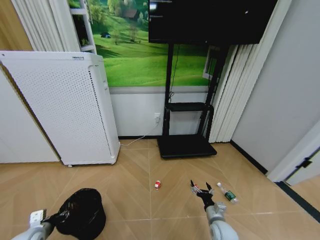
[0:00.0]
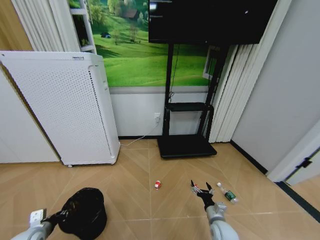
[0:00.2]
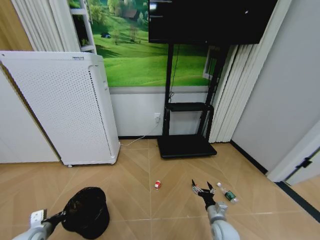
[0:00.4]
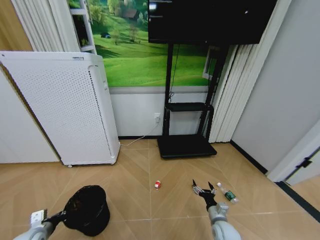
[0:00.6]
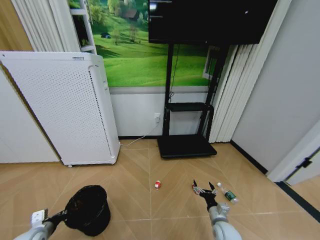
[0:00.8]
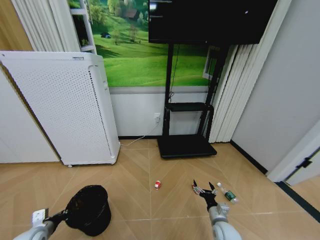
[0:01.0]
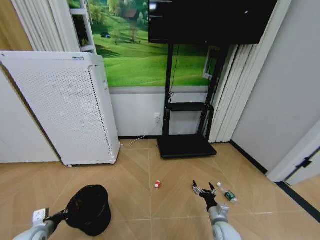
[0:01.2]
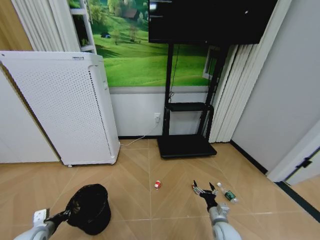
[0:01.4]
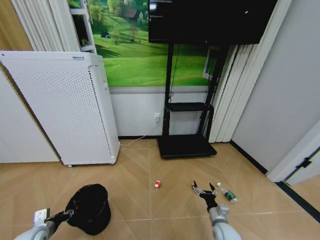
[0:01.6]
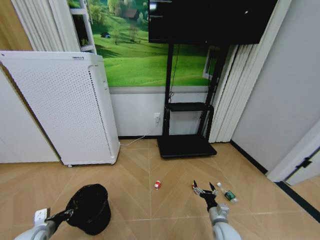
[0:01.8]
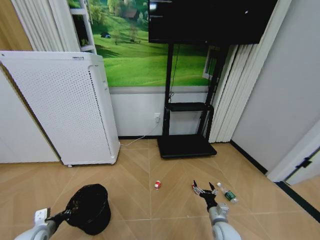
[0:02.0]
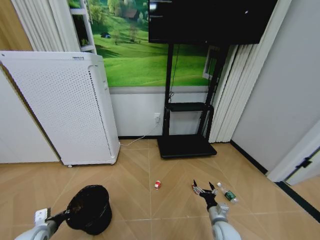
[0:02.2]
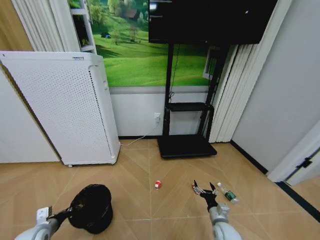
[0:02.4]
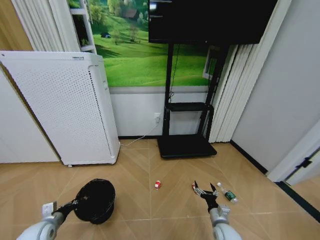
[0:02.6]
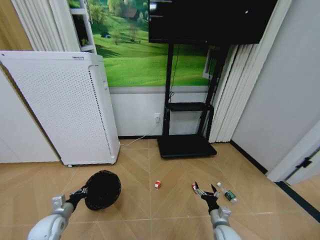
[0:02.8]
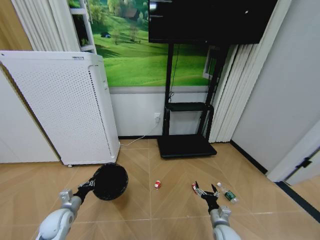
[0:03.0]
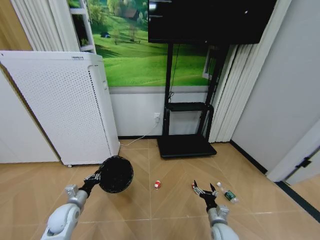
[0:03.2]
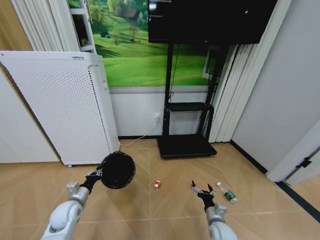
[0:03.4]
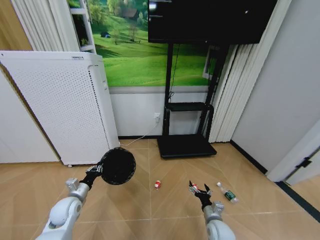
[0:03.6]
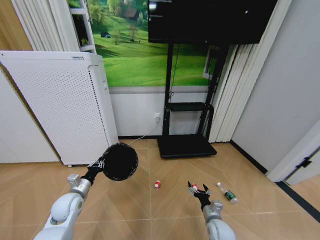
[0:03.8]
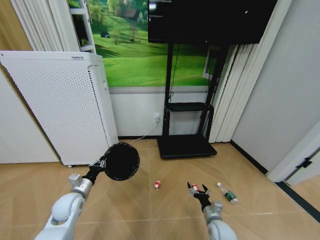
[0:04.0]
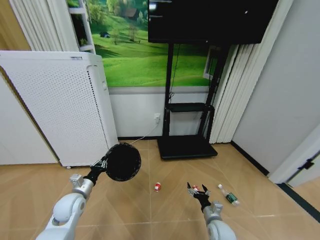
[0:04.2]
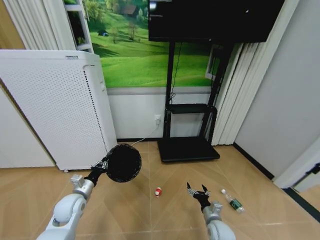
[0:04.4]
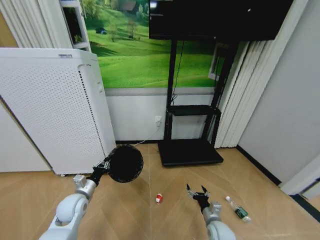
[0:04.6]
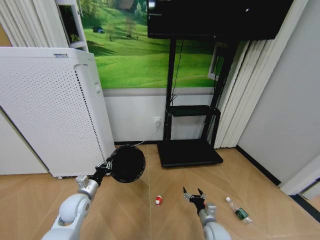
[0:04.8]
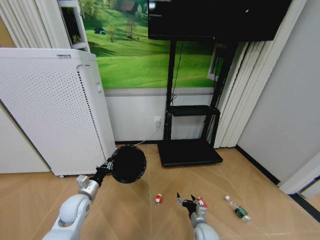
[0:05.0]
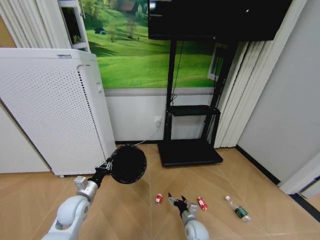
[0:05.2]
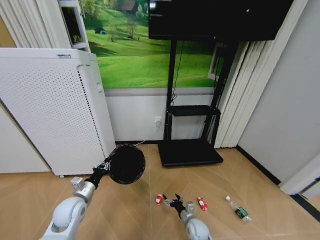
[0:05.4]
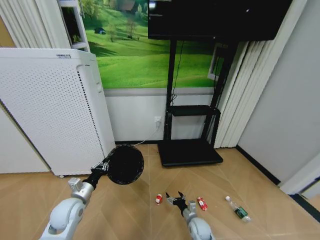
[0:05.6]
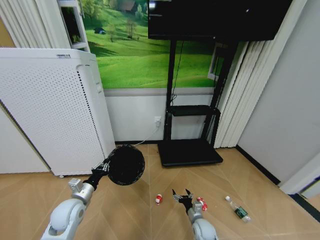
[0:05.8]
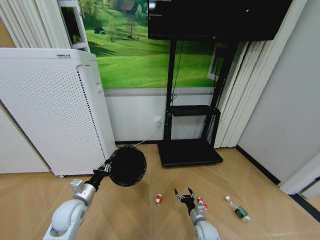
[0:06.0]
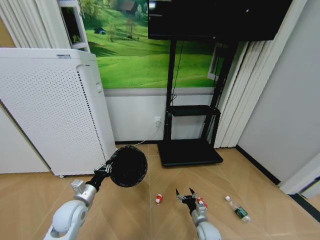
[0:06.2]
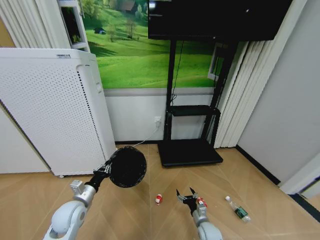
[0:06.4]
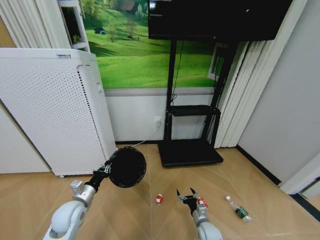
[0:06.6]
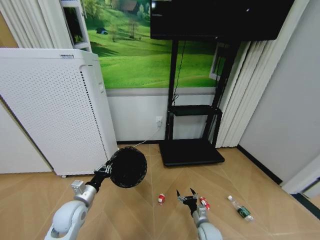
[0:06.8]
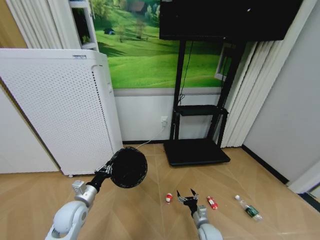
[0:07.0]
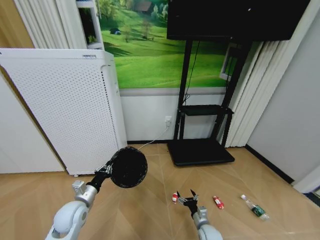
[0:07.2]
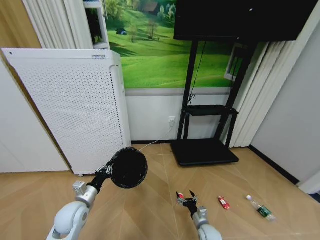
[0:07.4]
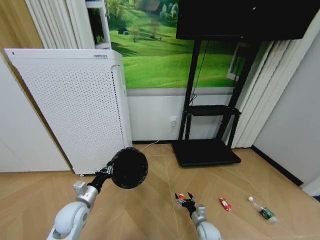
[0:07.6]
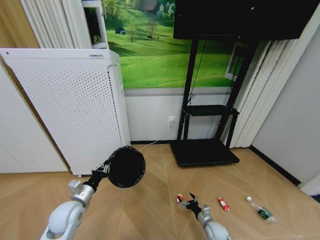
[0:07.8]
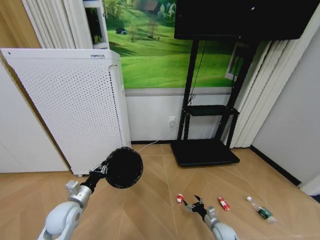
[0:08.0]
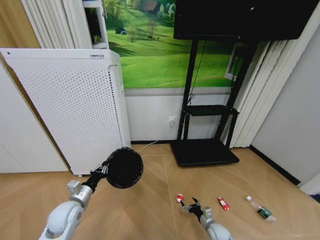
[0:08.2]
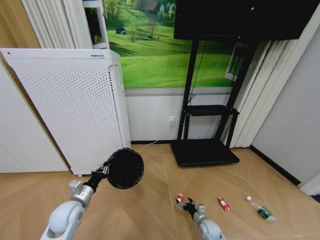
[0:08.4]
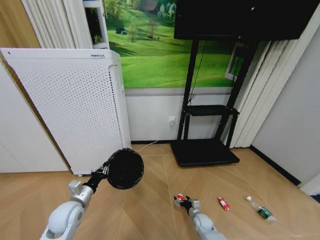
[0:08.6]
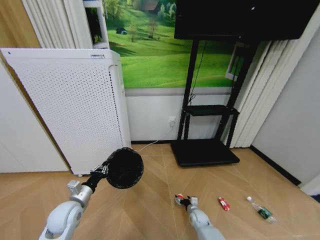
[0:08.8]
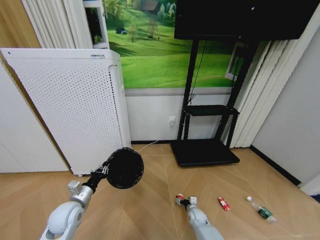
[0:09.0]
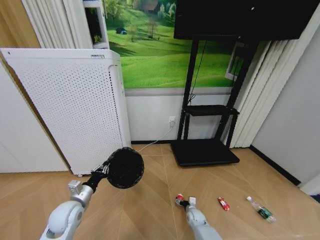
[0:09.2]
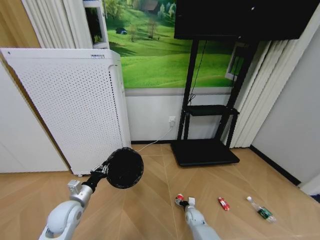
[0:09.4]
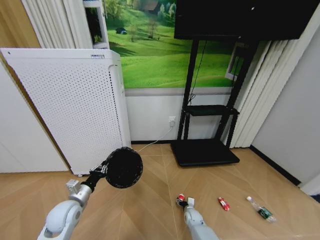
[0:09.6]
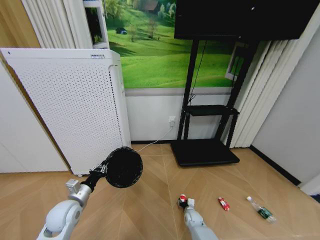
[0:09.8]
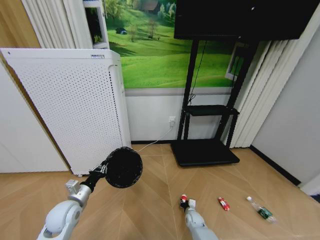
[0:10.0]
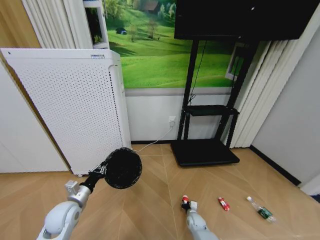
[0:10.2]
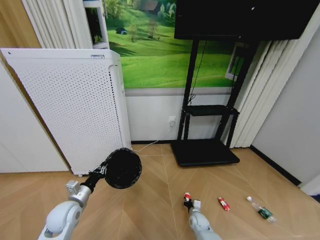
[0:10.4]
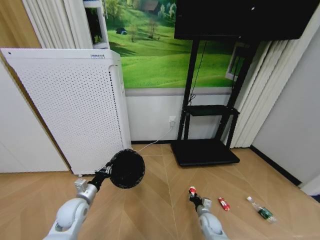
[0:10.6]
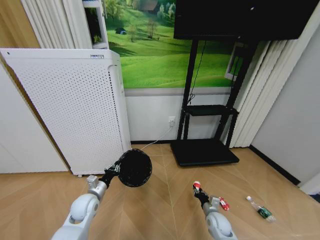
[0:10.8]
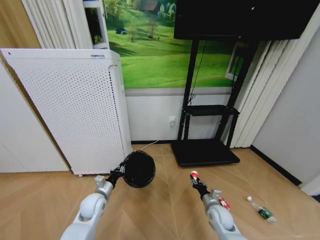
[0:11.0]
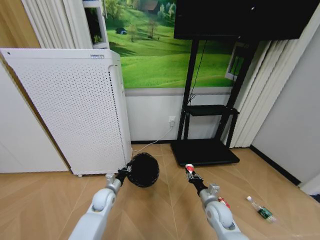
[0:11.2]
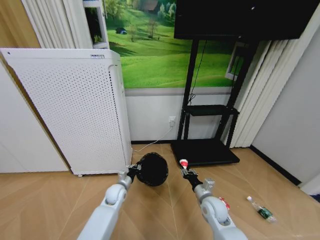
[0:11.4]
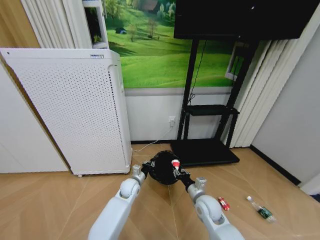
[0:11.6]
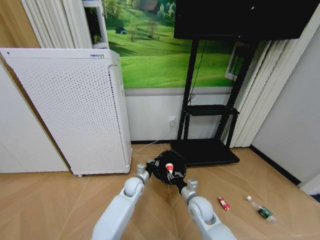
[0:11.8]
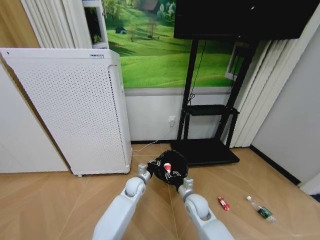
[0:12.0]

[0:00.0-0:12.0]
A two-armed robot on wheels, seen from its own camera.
Task of the whole recording: Pick up the trash bin and place the garbage on the floor into it.
0:00.0 to 0:01.6: The left gripper closes and opens again.
0:01.6 to 0:03.0: The left gripper goes approximately 10 cm forward and to the right, and closes its fingers.
0:03.0 to 0:04.4: The left gripper travels to the right and upward by approximately 10 cm.
0:04.4 to 0:06.0: The right gripper shifts roughly 5 cm downward.
0:07.6 to 0:09.0: The right gripper moves forward, some 5 cm, and goes to the right and returns, approximately 10 cm each way.
0:09.0 to 0:10.4: The right gripper closes its fingers.
0:10.4 to 0:12.0: The left gripper moves to the right and forward, about 30 cm. Meanwhile the right gripper moves upward, some 20 cm.

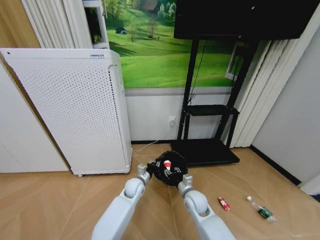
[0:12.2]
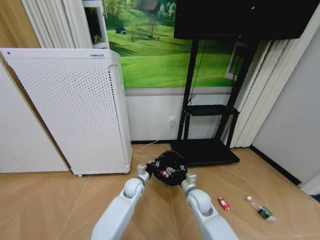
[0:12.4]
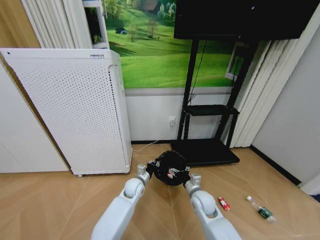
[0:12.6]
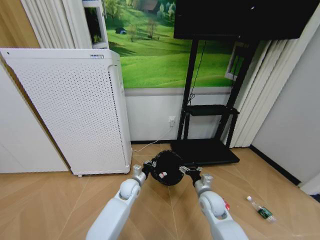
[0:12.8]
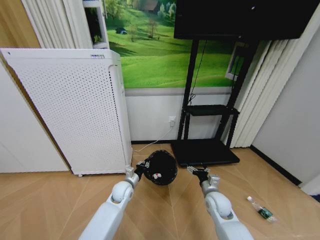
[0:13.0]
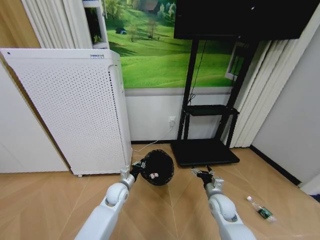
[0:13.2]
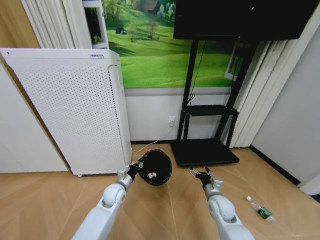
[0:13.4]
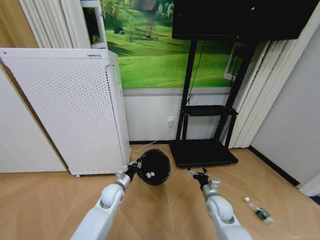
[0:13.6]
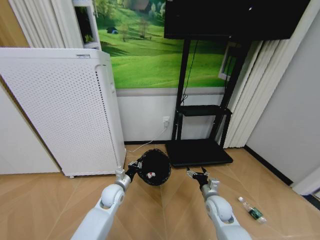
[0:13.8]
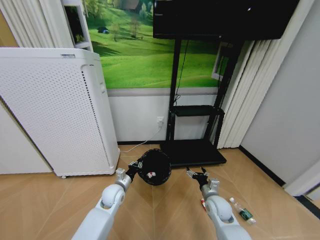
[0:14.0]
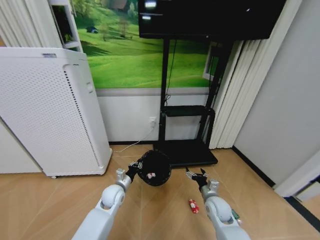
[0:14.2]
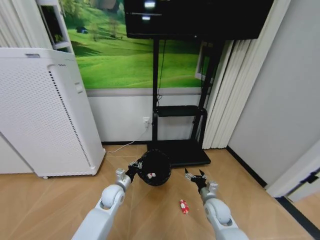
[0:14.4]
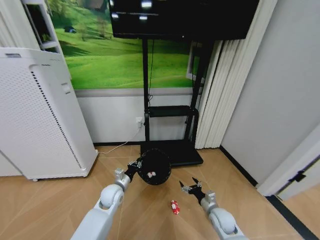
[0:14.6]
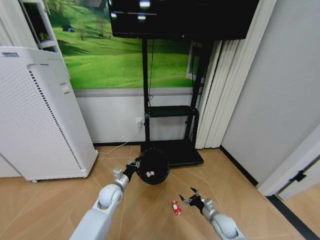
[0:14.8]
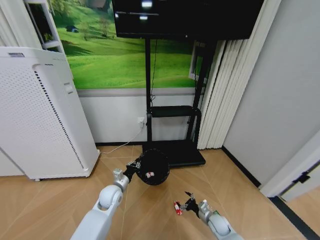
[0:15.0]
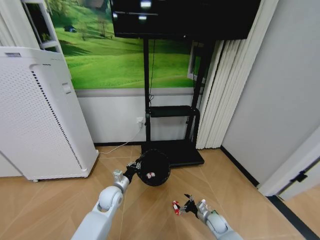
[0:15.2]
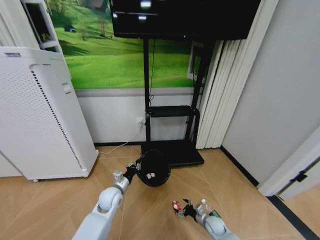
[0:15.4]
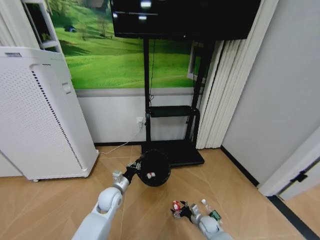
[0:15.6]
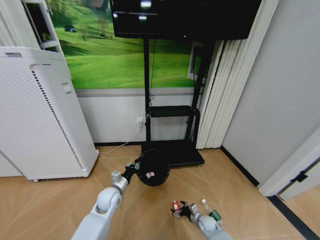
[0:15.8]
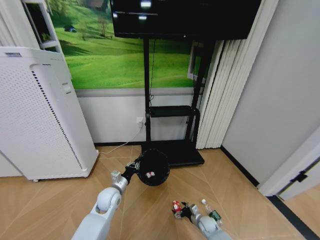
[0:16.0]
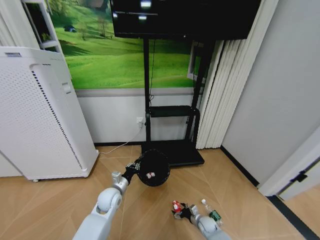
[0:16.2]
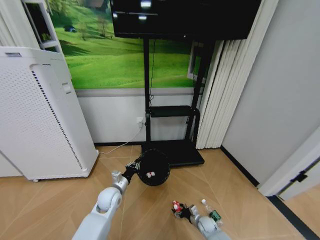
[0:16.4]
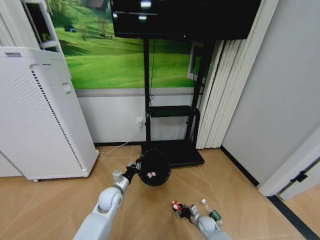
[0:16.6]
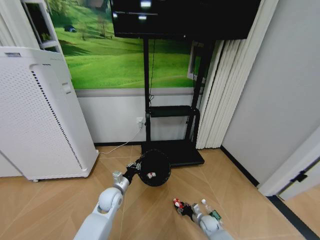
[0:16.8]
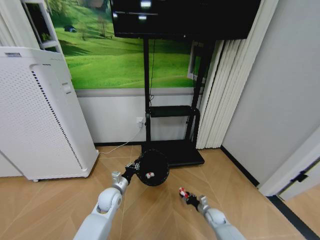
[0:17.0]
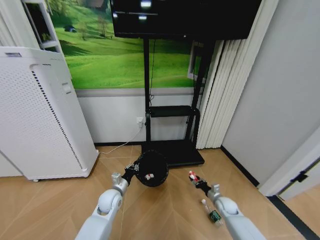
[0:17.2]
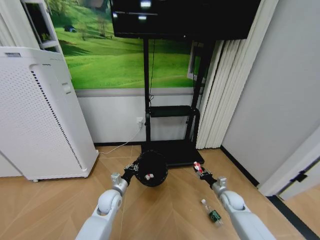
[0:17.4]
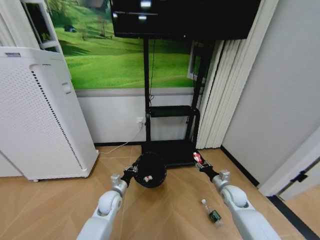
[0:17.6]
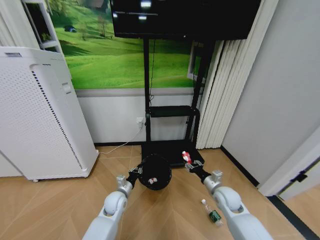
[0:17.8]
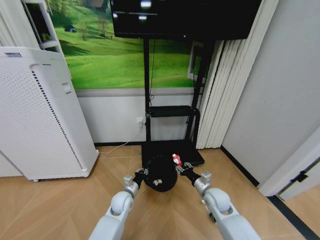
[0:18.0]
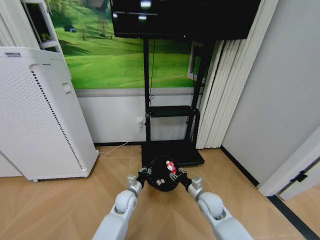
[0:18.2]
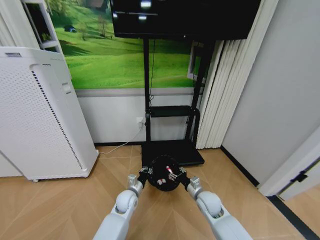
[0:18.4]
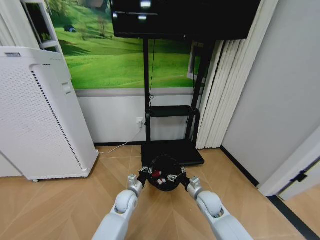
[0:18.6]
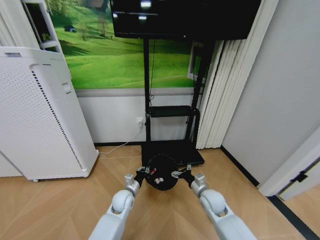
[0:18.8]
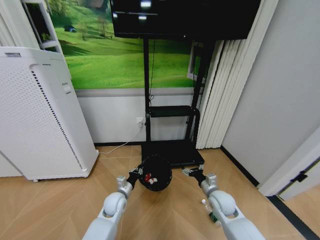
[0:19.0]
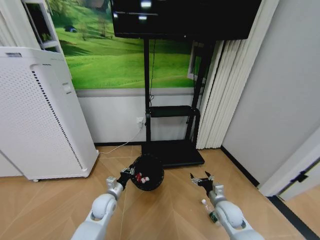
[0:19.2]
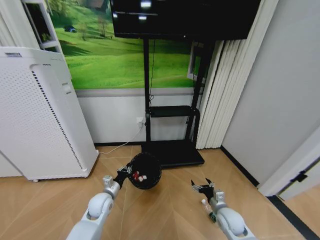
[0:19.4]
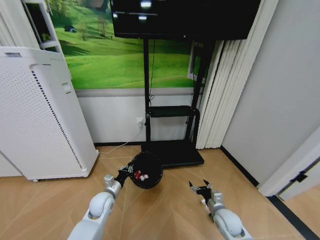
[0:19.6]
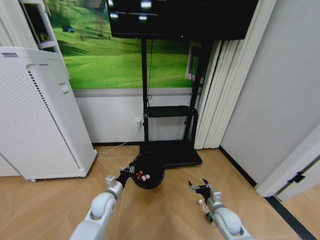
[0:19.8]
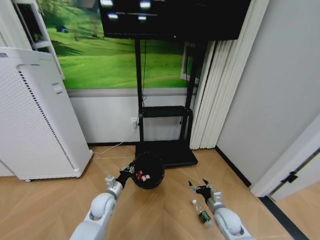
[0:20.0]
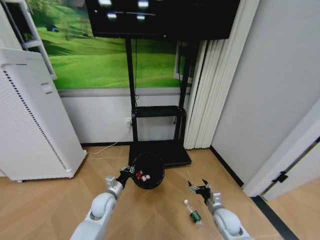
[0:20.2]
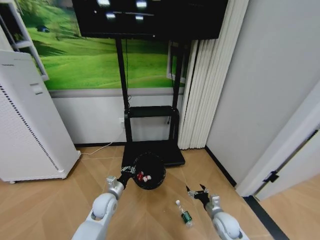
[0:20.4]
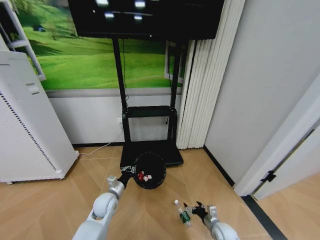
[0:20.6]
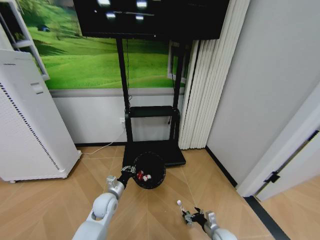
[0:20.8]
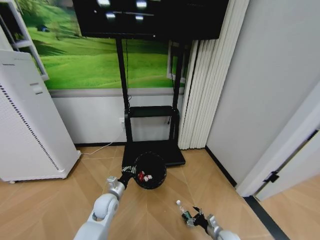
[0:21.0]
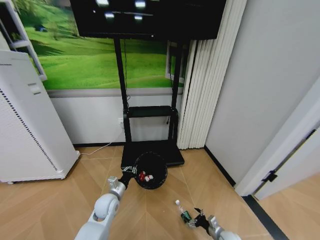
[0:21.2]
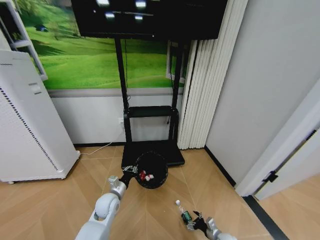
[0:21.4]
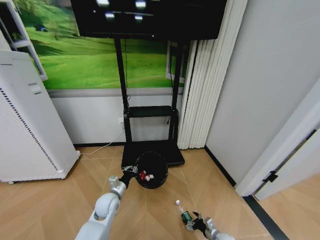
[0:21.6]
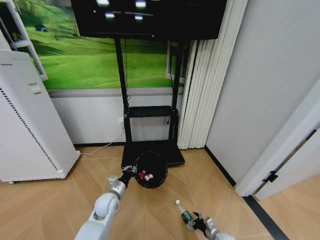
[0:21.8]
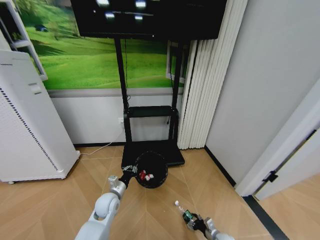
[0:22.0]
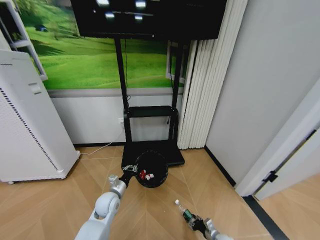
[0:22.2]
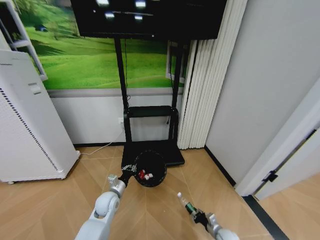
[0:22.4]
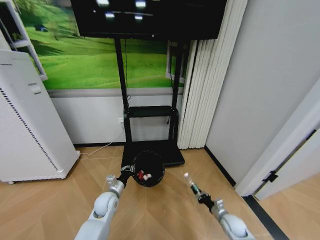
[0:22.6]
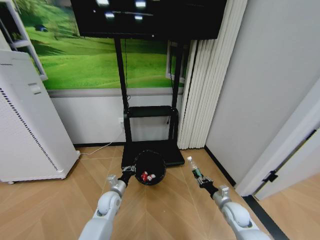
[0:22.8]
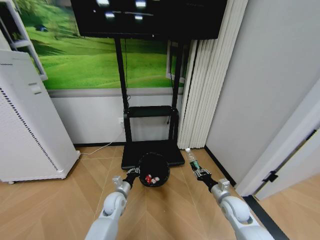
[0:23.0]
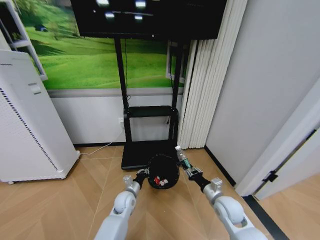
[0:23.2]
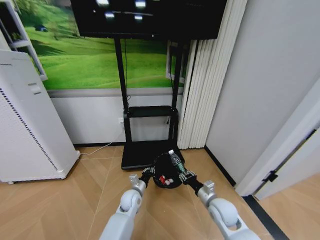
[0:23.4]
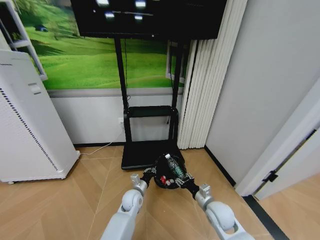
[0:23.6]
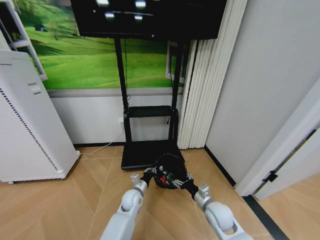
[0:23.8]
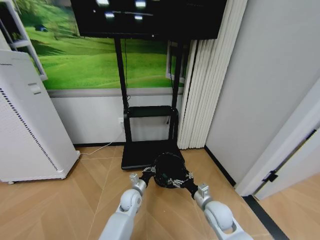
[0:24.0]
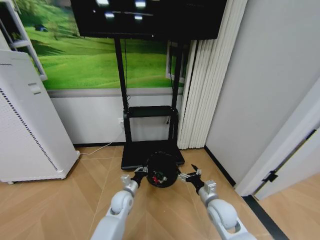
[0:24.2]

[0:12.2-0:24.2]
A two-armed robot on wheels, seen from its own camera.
Task of the whole recording: Pick up the trash bin and place the garbage on the floor into it.
0:12.2 to 0:13.8: The left gripper shifts about 10 cm to the left, while the right gripper goes about 10 cm to the right, and opens up.
0:13.8 to 0:15.2: The right gripper moves downward, approximately 20 cm.
0:15.2 to 0:16.6: The right gripper shifts some 5 cm downward, and closes its fingers.
0:16.6 to 0:18.2: The right gripper goes some 25 cm upward. The left gripper goes about 5 cm to the right.
0:18.2 to 0:19.8: The right gripper heads to the right and downward, covering some 10 cm, and opens, while the left gripper goes some 10 cm to the left.
0:19.8 to 0:21.2: The right gripper is displaced downward by roughly 15 cm.
0:21.2 to 0:22.6: The right gripper shifts approximately 5 cm upward, and closes.
0:22.6 to 0:24.2: The left gripper moves to the right, some 5 cm. Meanwhile the right gripper travels upward and to the left by about 20 cm, and opens its fingers.
